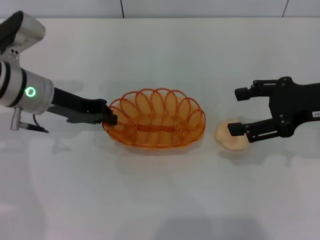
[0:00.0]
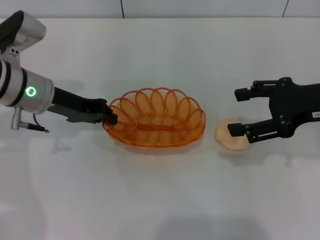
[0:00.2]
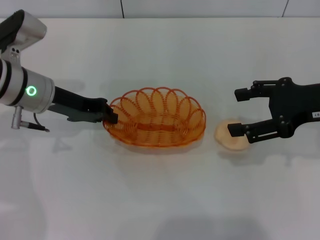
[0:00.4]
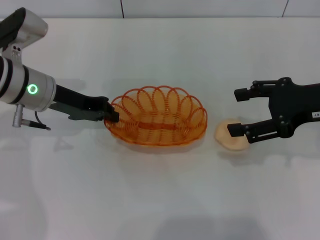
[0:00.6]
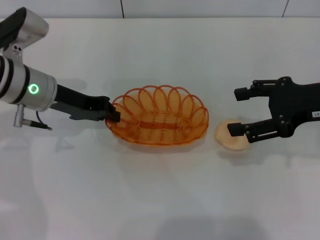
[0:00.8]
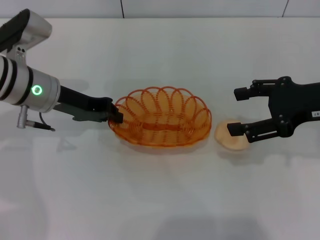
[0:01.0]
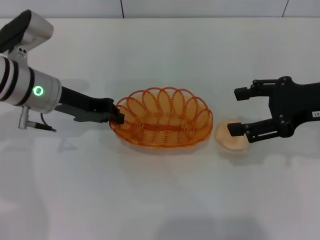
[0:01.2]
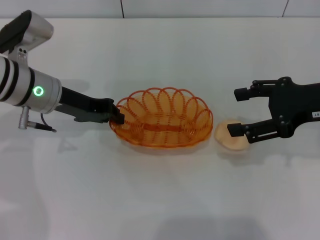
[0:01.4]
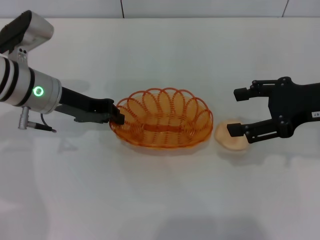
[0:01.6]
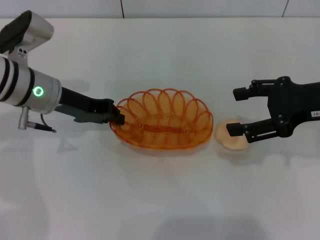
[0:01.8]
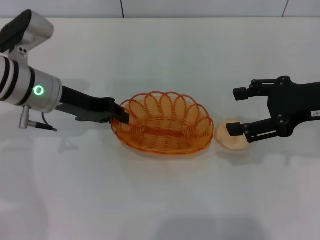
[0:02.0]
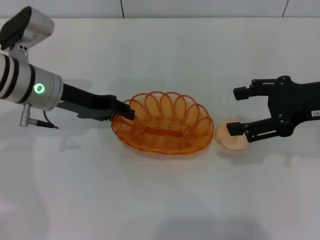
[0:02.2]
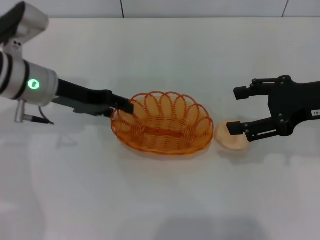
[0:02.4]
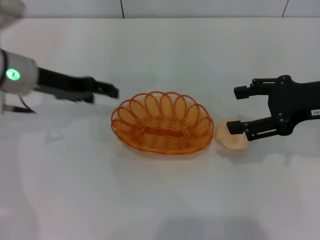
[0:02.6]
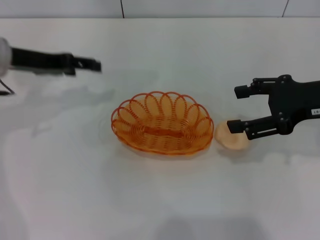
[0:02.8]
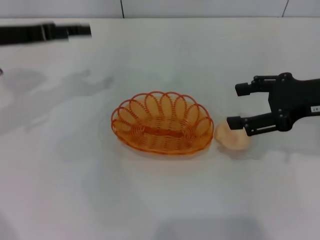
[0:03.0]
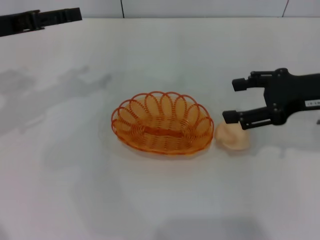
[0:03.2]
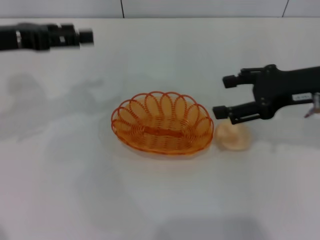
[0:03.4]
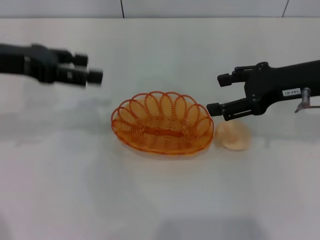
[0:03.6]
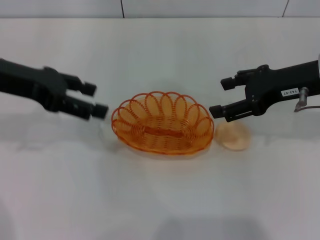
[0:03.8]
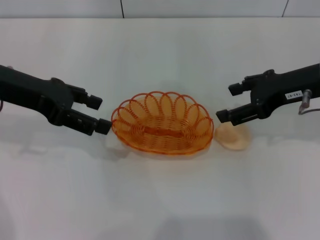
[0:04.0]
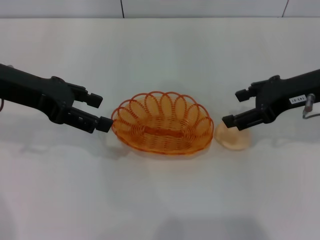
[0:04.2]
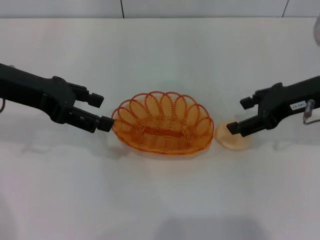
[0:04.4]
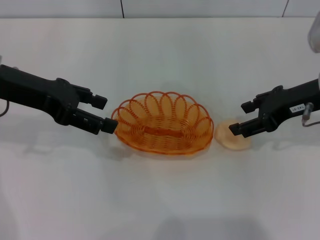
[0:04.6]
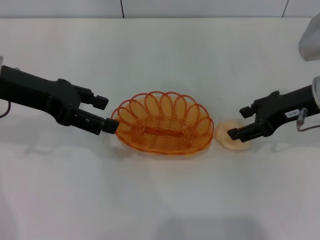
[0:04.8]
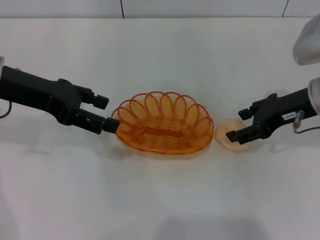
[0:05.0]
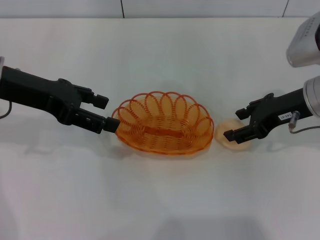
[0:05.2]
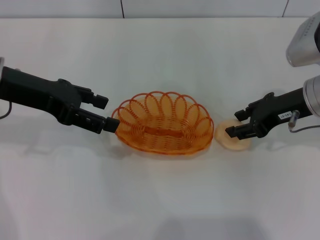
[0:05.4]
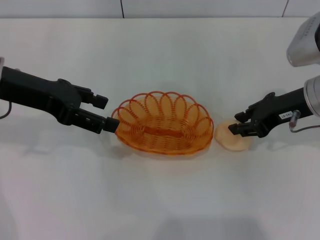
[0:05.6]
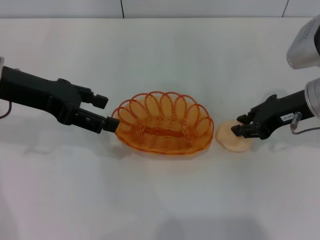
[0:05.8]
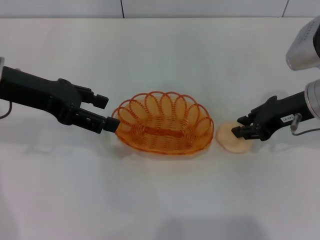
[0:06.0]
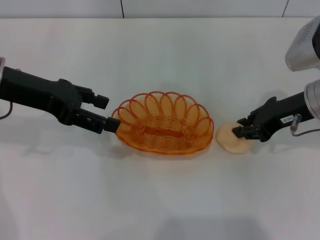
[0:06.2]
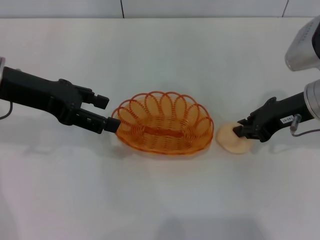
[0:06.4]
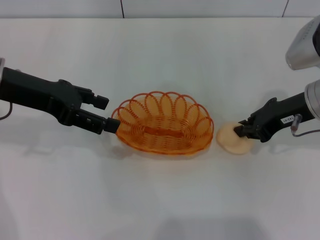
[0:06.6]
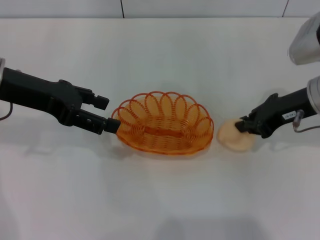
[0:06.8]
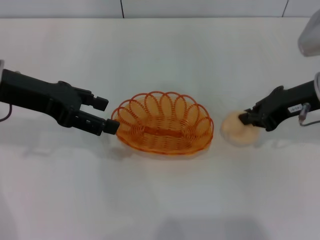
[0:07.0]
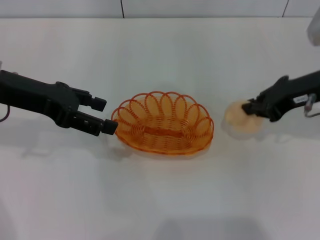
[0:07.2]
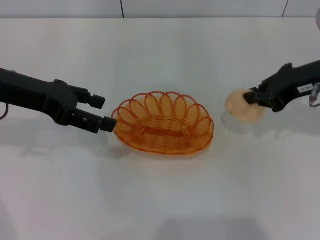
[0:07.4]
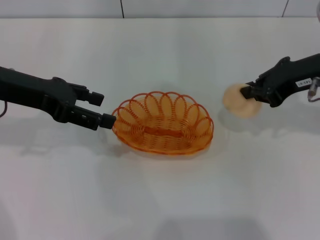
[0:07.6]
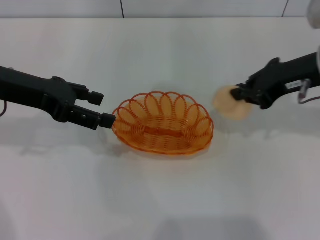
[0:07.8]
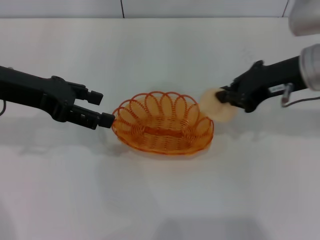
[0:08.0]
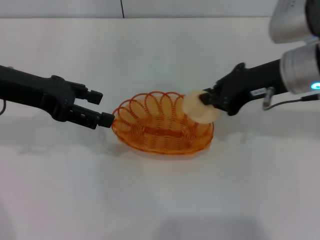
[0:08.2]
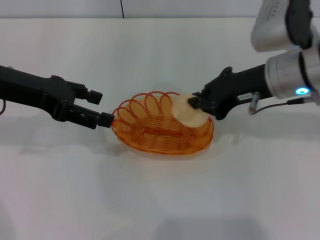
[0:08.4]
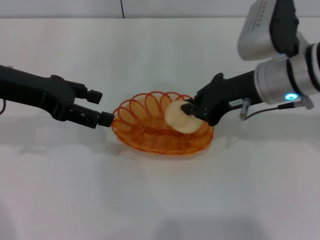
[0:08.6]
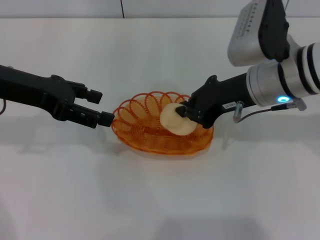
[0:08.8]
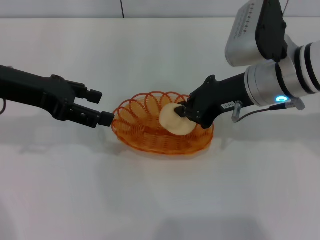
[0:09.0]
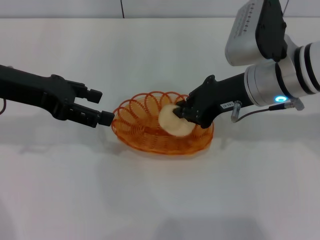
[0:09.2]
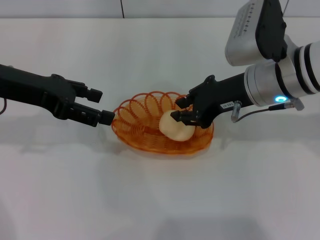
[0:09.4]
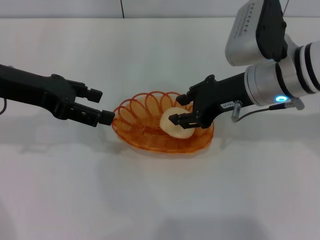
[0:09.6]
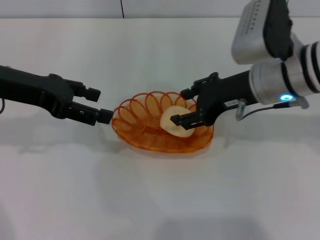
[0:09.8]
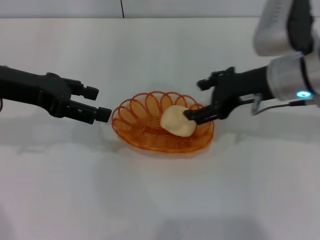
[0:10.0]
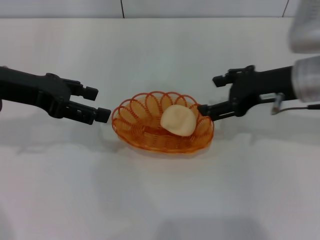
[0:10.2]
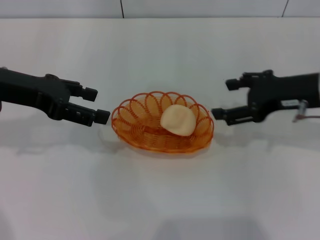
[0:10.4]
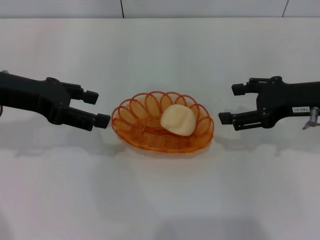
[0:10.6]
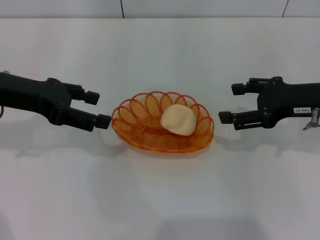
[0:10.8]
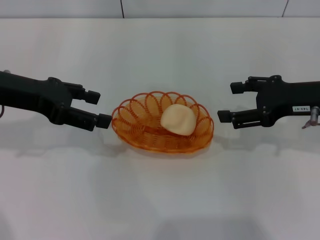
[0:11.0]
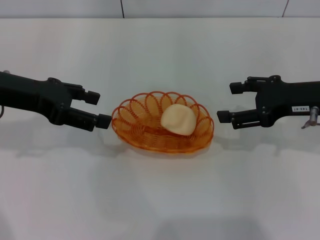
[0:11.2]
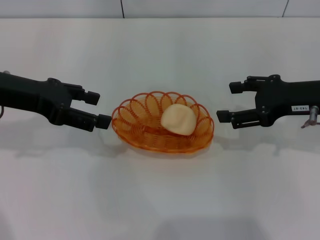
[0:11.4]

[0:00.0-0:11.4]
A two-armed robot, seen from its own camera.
Step, 0:00.0 to 0:02.6: Place the basket in the center of view with the left gripper.
Step, 0:02.8 to 0:07.0: Pick up the egg yolk pastry with the right gripper.
Step, 0:07.2 to 0:10.0: Place the egg yolk pastry into the basket with the right gripper.
0:00.0 to 0:01.4: Neither gripper changes place.
0:01.4 to 0:02.8: The left gripper heads to the left, covering some 5 cm, and opens its fingers.
0:02.8 to 0:04.2: The left gripper ends up roughly 5 cm from where it was.
0:04.2 to 0:05.6: There are only small adjustments of the grippers.
0:05.6 to 0:07.2: The right gripper closes its fingers.
0:07.2 to 0:08.6: The right gripper travels to the left by approximately 10 cm.
0:08.6 to 0:10.0: The right gripper opens up.
0:10.0 to 0:11.4: The right gripper travels to the right by approximately 10 cm.

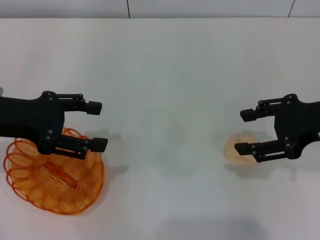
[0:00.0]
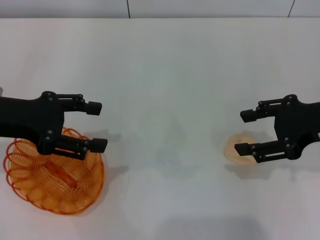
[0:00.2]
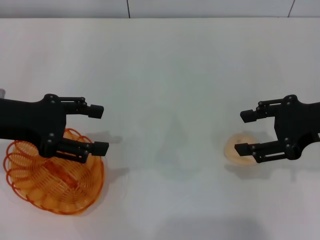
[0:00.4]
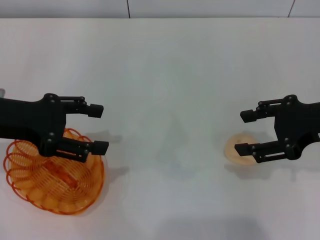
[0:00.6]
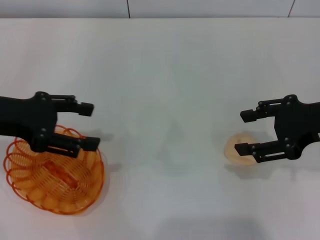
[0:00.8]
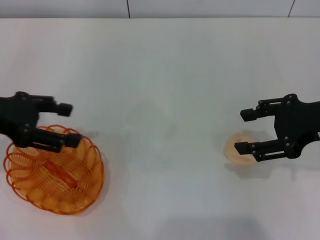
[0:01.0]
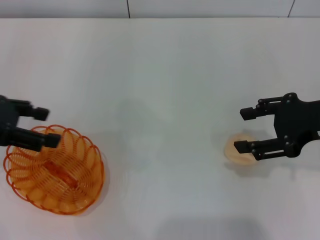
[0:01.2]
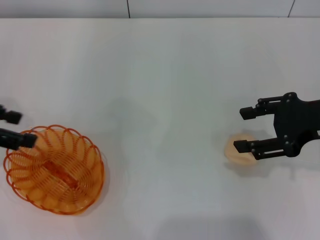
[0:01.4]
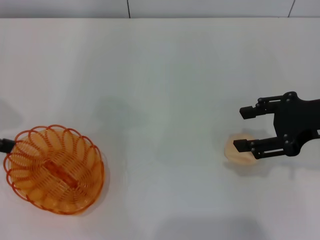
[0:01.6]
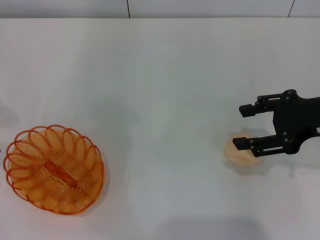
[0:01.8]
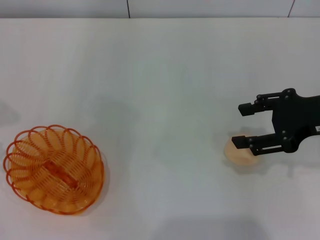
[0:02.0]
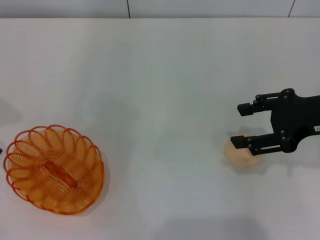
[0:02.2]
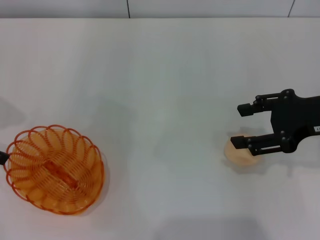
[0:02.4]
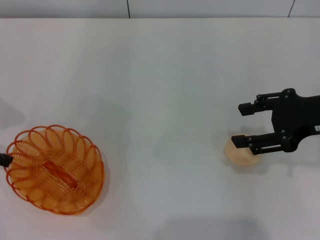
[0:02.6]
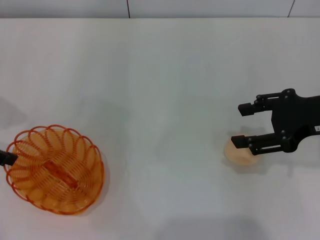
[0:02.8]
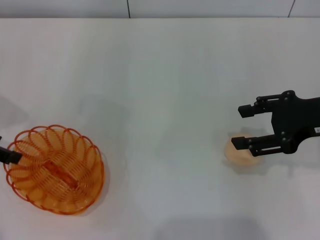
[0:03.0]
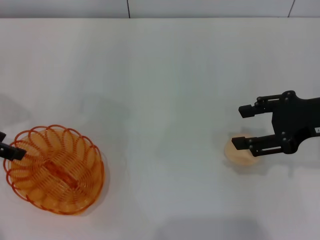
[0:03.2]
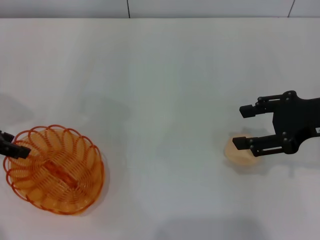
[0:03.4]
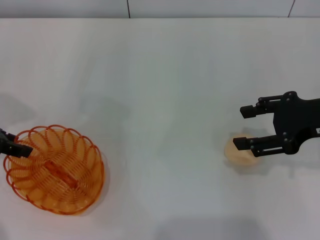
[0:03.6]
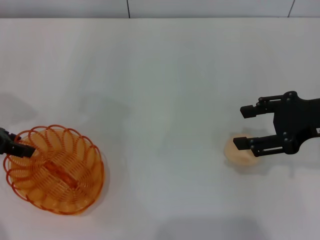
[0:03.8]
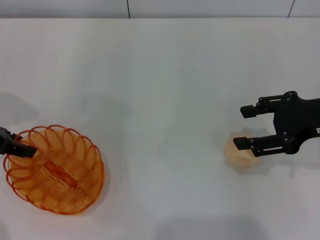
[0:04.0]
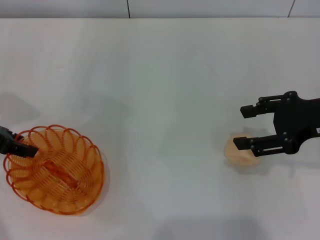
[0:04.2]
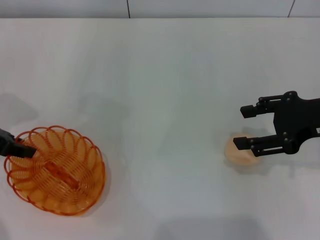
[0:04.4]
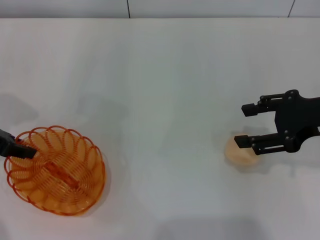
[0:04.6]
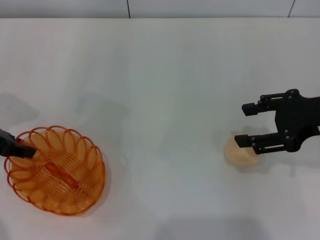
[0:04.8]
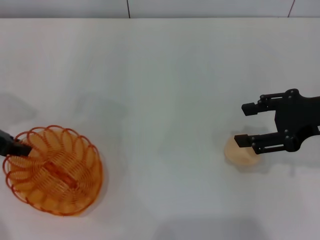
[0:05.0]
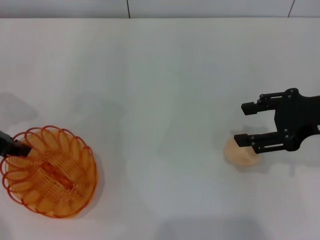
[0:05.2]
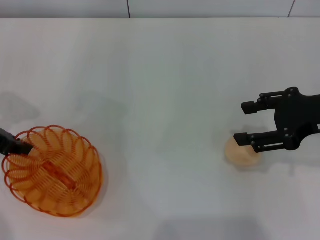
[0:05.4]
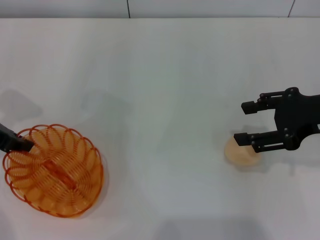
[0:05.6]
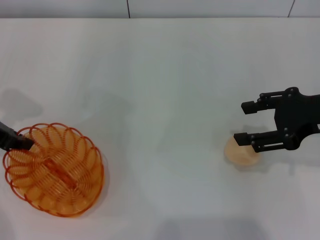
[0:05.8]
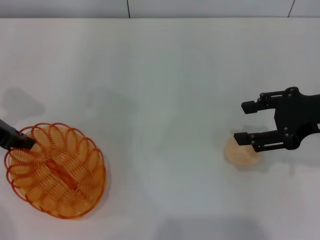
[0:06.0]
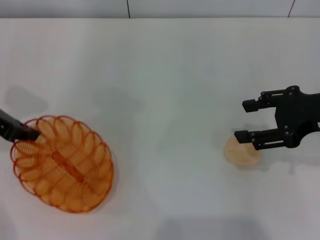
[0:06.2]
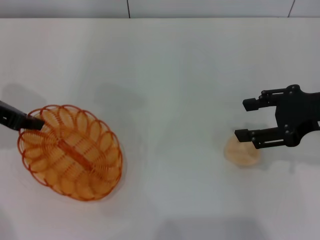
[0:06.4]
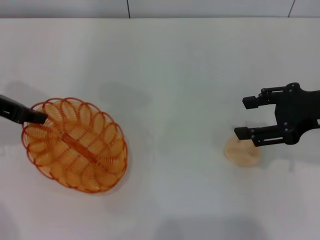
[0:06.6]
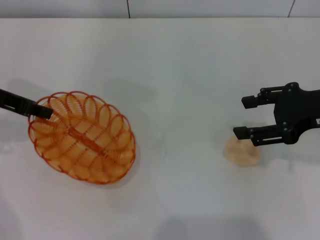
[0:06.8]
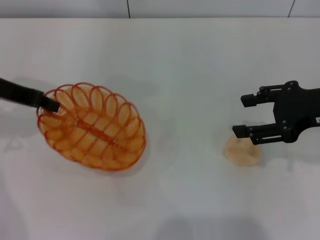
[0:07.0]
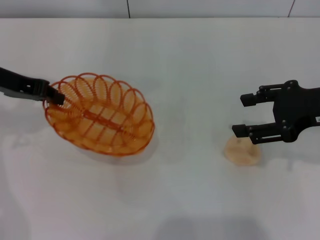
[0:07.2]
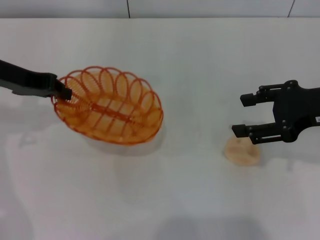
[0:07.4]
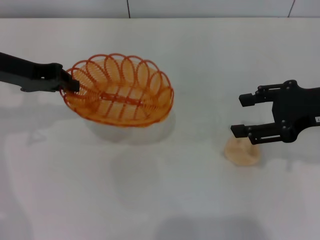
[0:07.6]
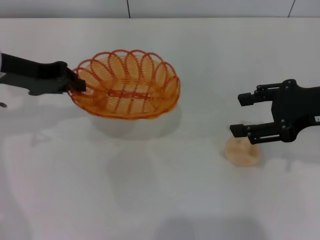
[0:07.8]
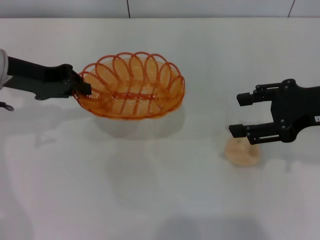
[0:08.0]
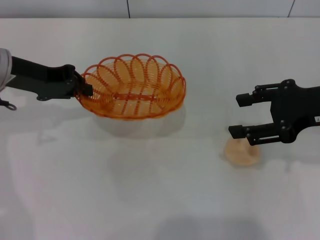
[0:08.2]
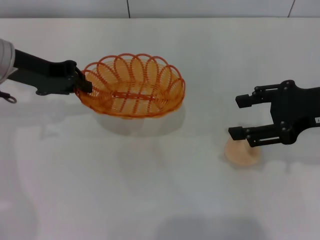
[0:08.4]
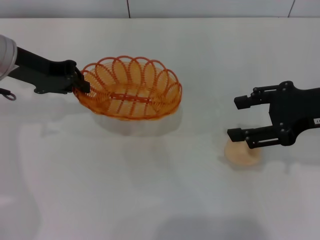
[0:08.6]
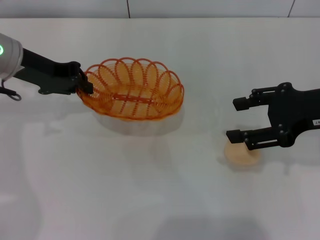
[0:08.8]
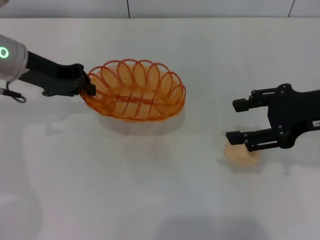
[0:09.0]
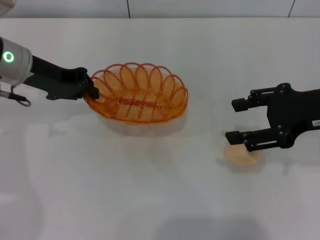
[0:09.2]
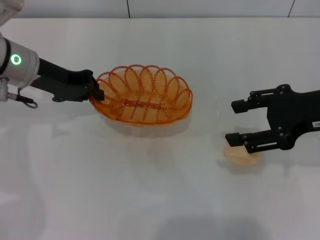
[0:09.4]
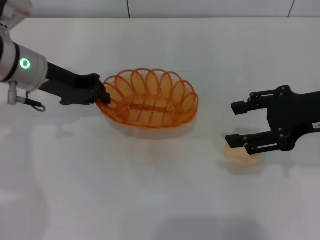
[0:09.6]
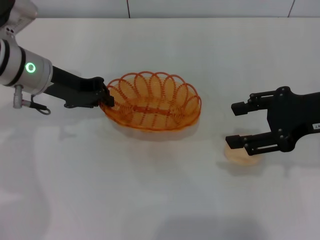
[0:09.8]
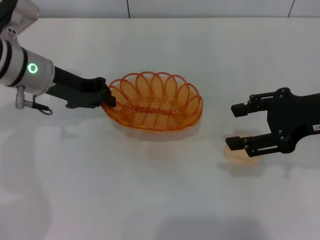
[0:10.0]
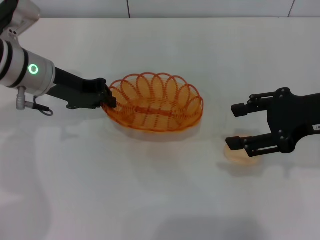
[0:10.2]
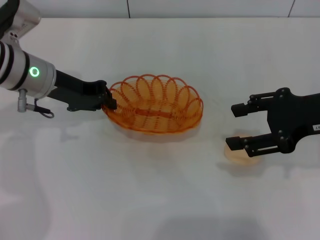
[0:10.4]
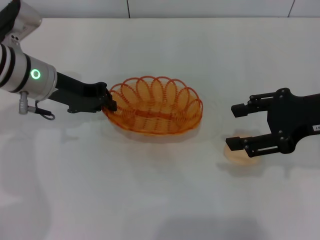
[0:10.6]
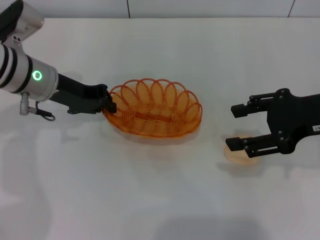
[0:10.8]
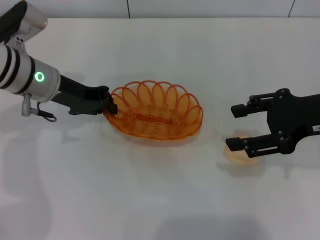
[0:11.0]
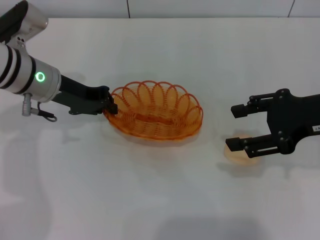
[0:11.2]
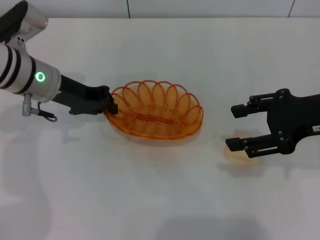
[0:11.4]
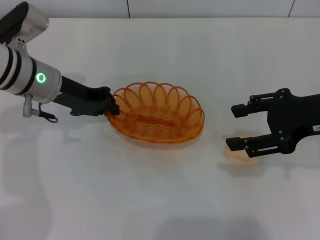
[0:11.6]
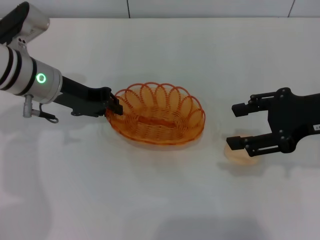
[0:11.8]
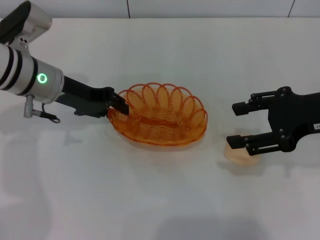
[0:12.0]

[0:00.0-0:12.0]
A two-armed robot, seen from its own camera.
Step, 0:00.0 to 0:06.6: Pick up the basket with the left gripper.
0:00.0 to 0:01.6: The left gripper travels to the left by approximately 10 cm.
0:03.0 to 0:04.4: The left gripper closes.
0:04.4 to 0:06.0: The left gripper closes its fingers.
0:06.0 to 0:07.6: The left gripper travels to the right by about 5 cm.
0:07.6 to 0:09.0: The grippers stay close to where they were, moving slightly.
0:09.0 to 0:10.4: There are only small adjustments of the grippers.
0:10.4 to 0:12.0: Neither gripper changes place.
